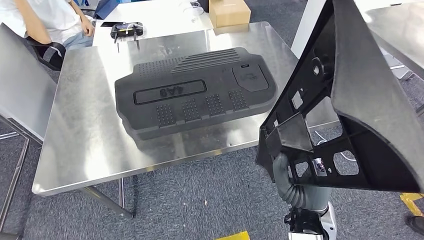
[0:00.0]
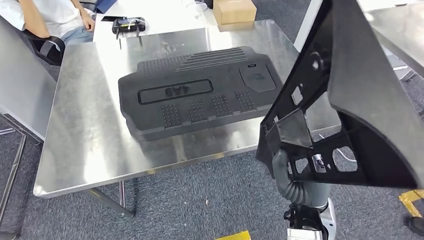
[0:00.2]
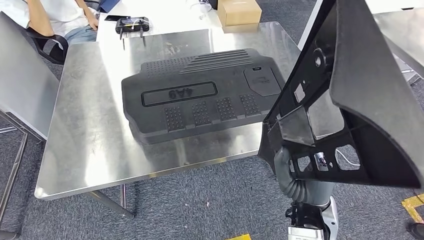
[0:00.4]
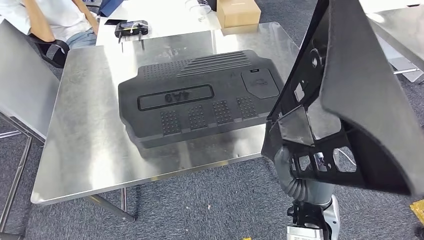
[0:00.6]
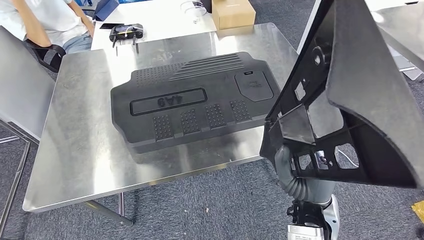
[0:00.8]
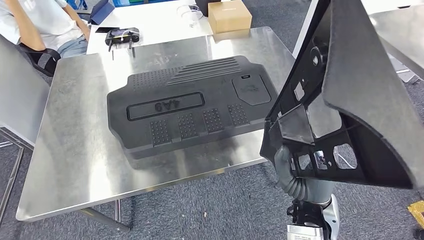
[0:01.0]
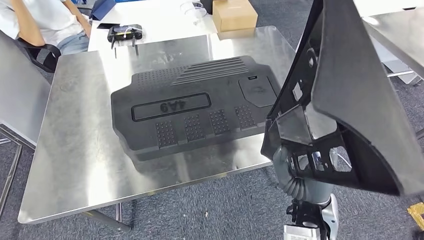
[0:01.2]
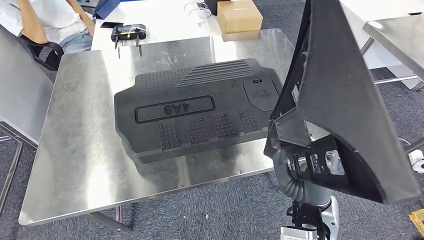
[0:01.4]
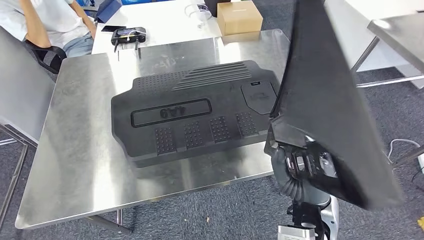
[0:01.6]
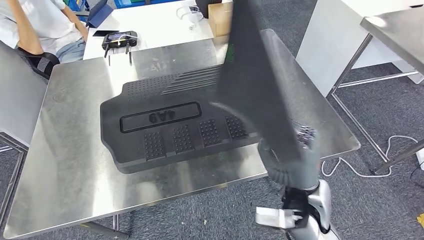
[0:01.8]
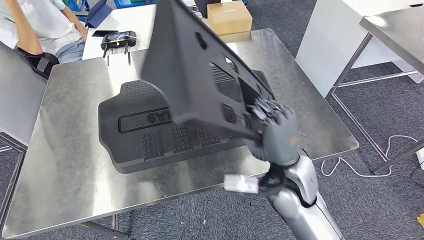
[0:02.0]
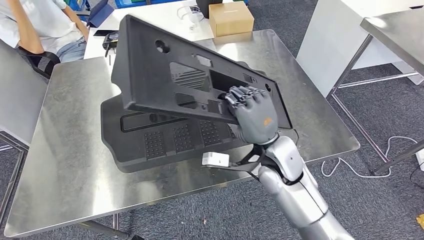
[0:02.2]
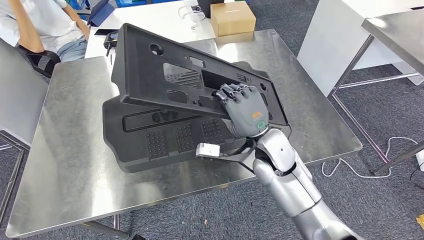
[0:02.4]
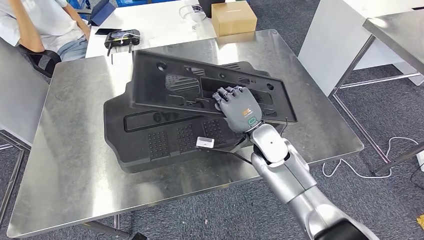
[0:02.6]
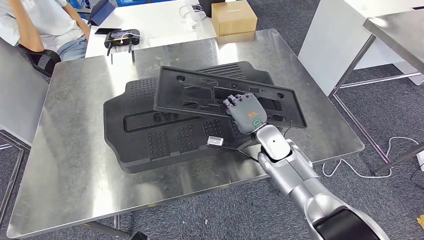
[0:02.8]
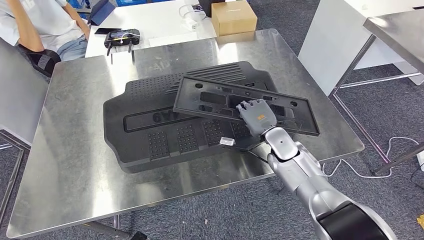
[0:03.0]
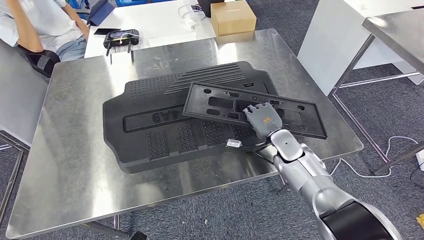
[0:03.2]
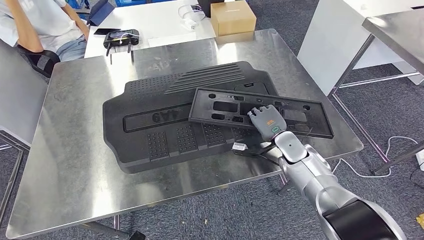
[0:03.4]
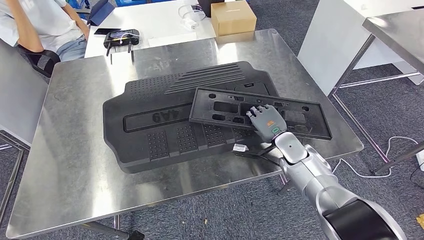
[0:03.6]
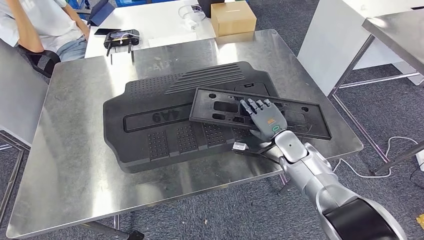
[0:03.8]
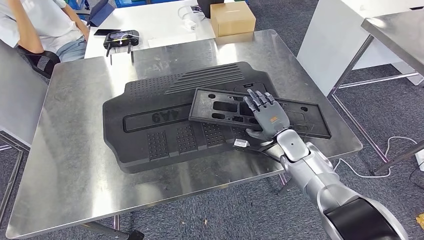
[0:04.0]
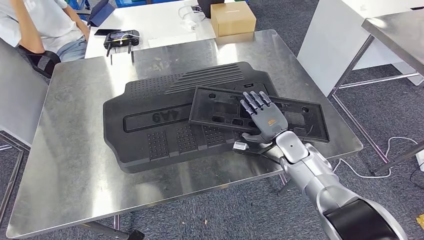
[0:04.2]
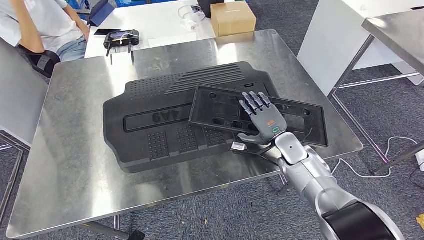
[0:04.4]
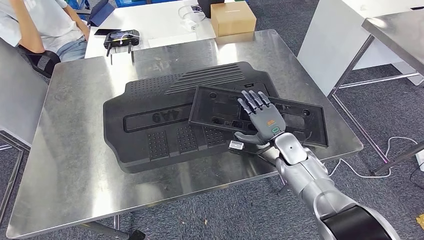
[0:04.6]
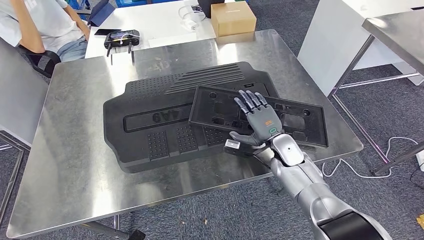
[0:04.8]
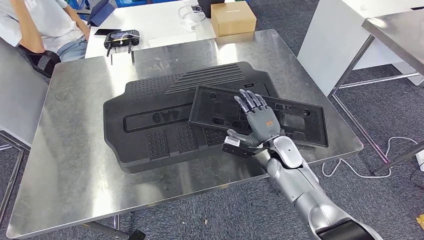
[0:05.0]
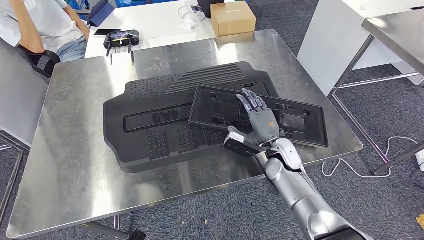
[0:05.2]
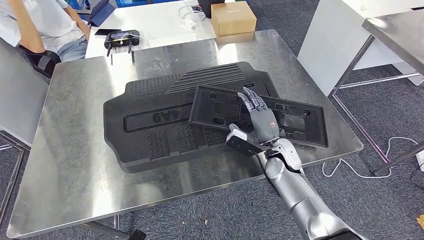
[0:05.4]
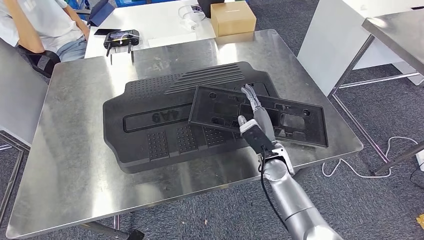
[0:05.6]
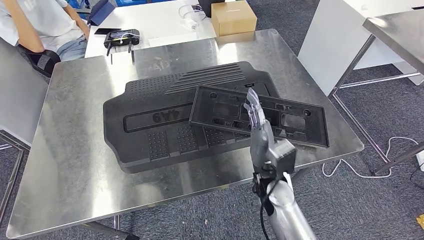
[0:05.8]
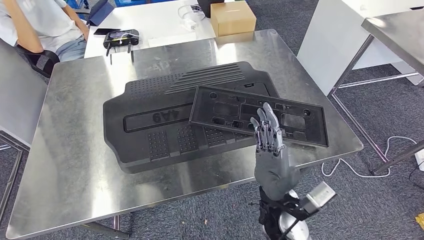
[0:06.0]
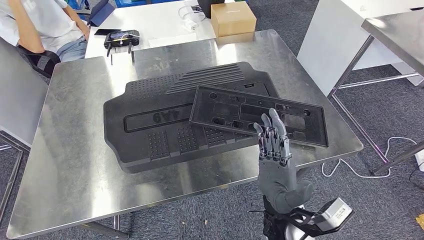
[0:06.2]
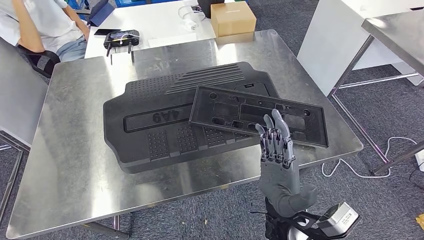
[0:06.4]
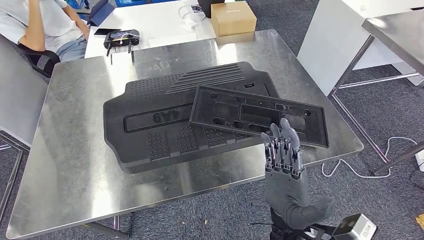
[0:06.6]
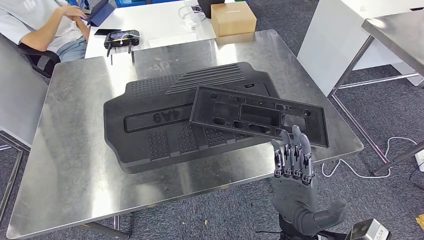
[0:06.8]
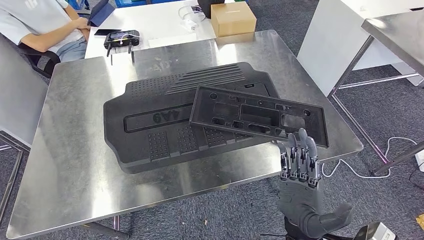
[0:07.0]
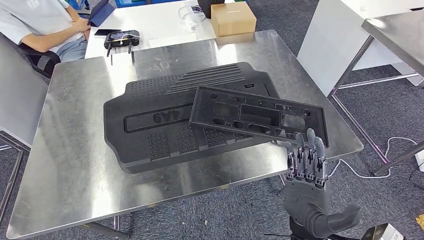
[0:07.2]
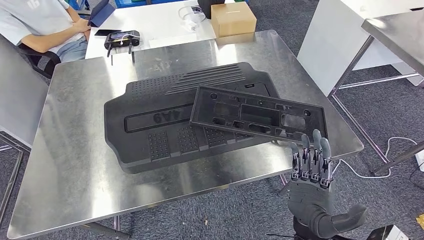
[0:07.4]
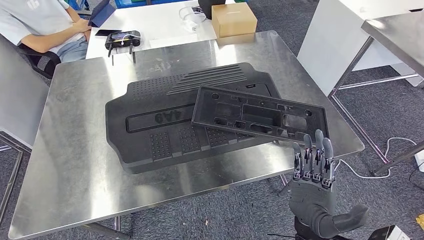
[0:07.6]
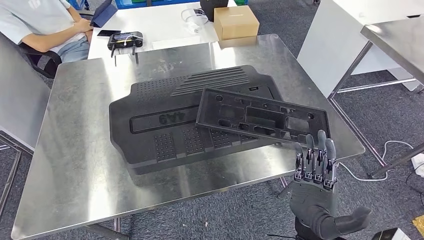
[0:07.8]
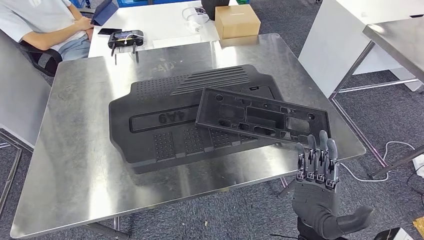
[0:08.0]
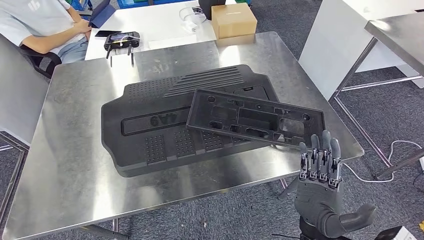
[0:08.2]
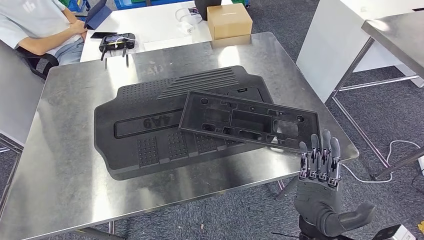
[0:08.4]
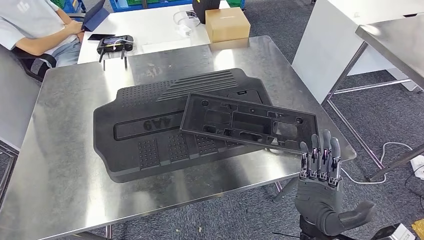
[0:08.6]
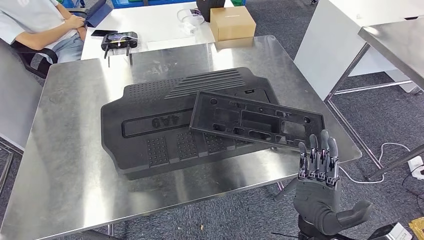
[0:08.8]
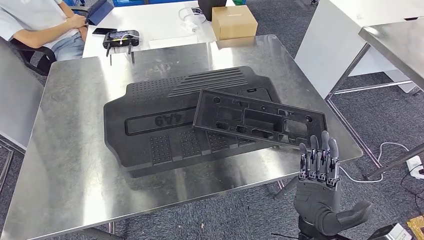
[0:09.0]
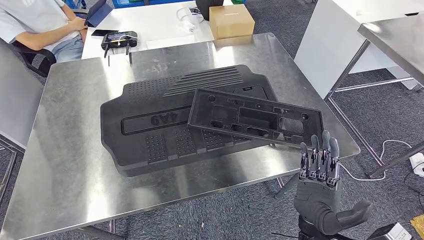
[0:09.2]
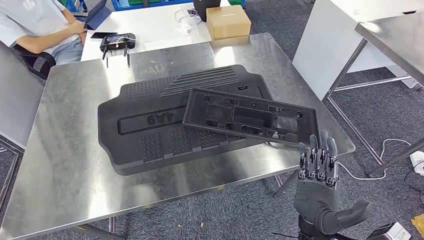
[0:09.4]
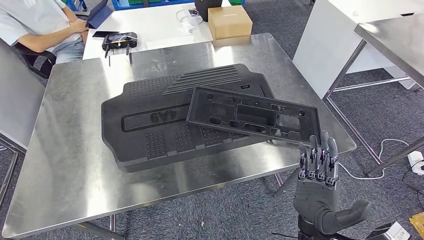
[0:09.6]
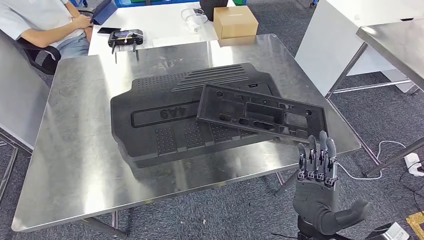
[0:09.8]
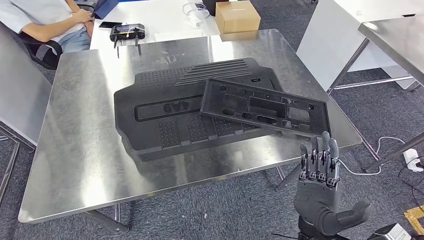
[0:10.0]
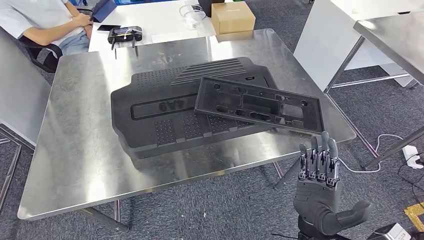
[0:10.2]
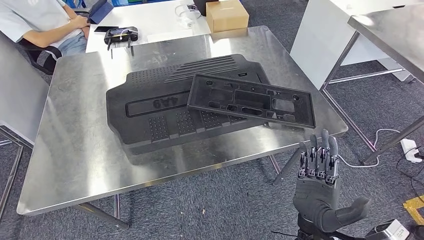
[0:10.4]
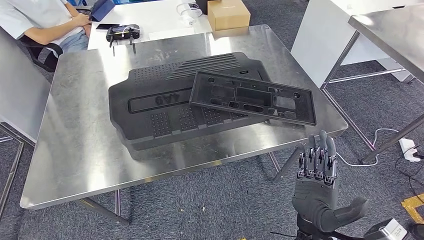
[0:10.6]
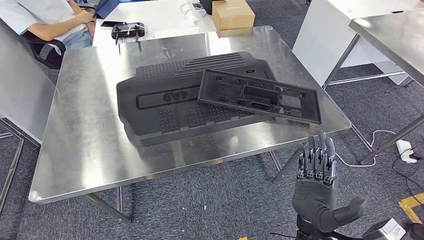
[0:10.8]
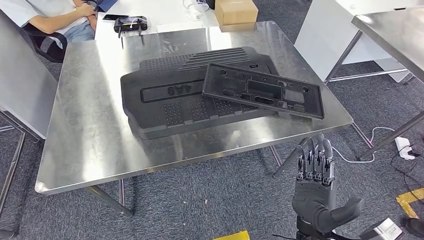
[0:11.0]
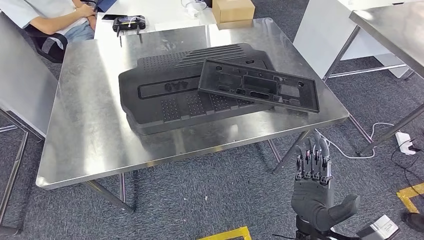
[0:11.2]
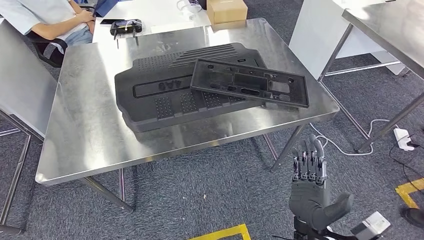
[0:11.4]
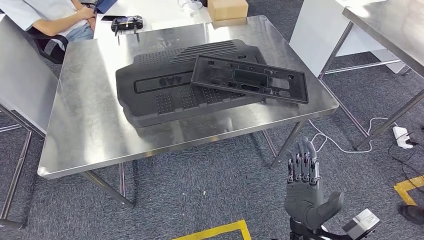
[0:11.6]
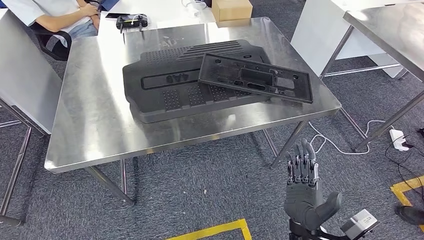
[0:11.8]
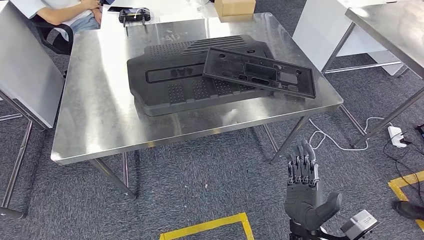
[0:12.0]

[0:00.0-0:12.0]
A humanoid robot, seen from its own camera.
Step, 0:00.0 to 0:11.4: Insert the large material into the corresponding slot on the workbench.
0:03.0 to 0:04.4: The hands make only small movements.
0:04.4 to 0:06.0: The right hand heads backward and to the left, covering approximately 20 cm.
0:06.0 to 0:07.6: The right hand shifts roughly 10 cm backward and to the right.

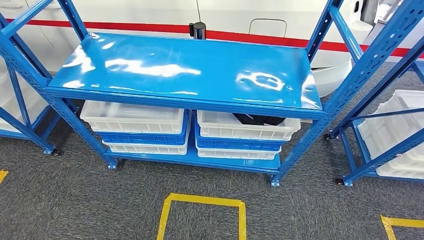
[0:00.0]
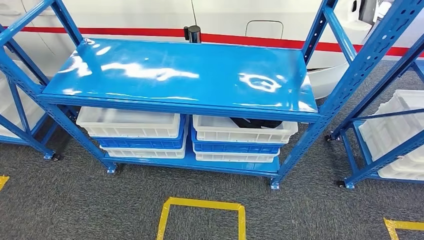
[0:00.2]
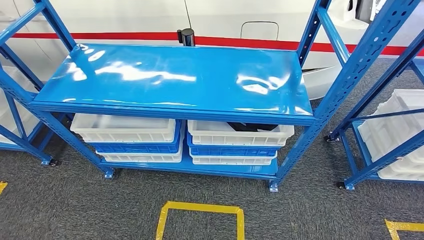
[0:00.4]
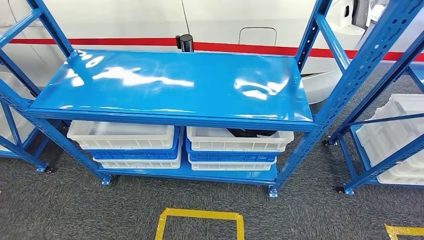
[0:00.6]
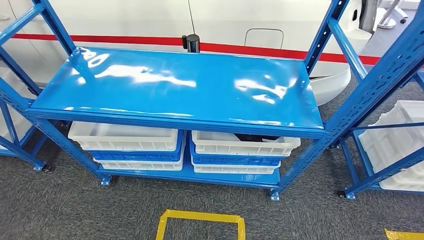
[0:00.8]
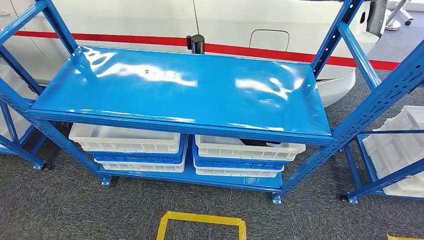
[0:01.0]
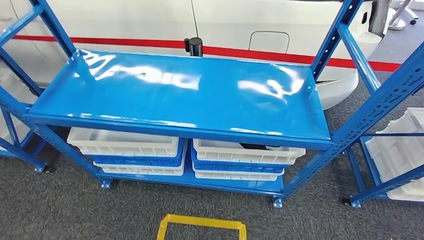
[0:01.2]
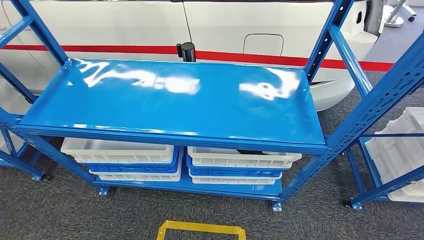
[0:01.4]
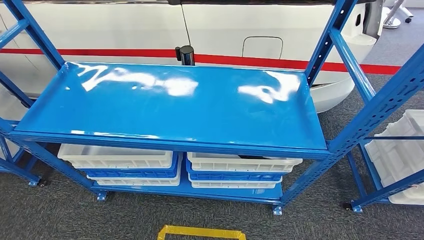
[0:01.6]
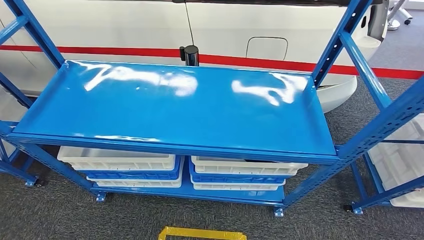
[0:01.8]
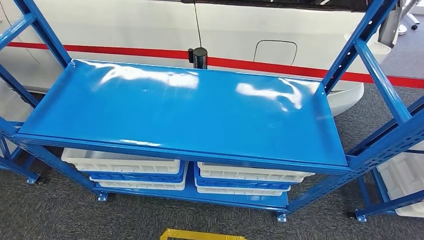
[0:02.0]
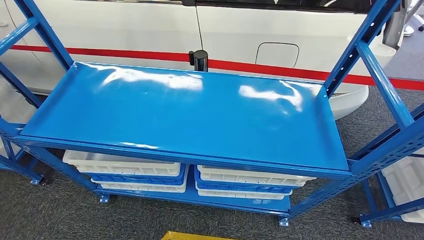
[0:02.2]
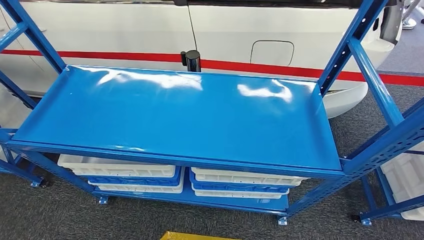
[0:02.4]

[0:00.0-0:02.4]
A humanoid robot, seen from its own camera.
Step, 0:00.0 to 0:02.4: Move to the initial position of the shelf.
